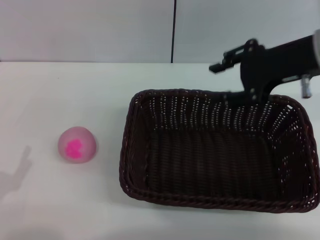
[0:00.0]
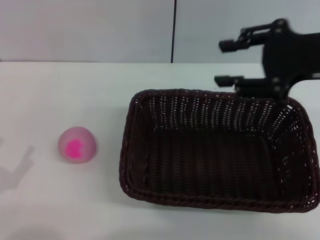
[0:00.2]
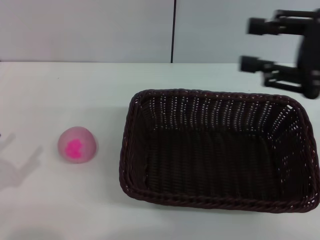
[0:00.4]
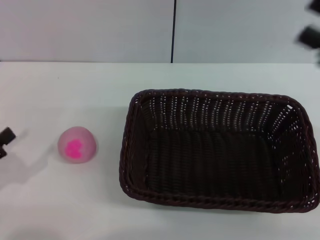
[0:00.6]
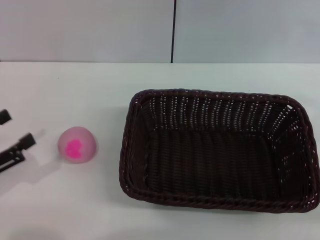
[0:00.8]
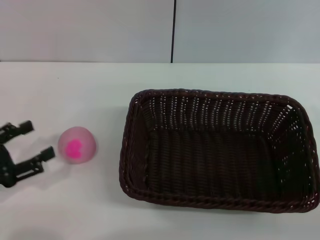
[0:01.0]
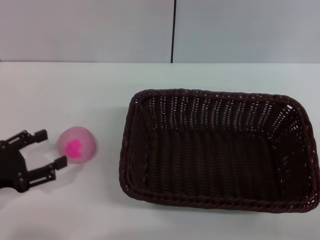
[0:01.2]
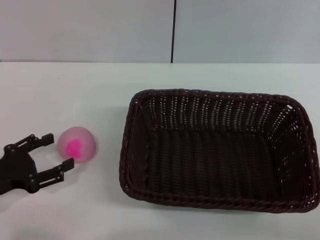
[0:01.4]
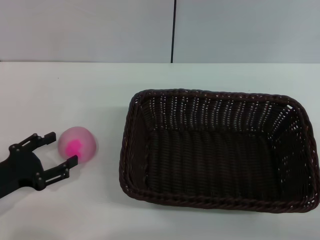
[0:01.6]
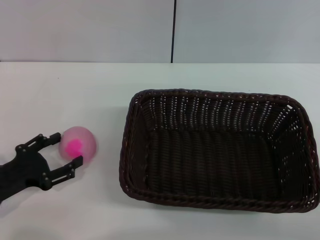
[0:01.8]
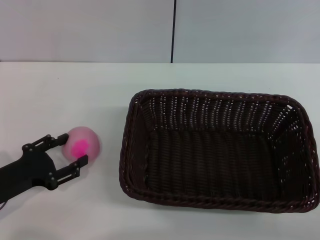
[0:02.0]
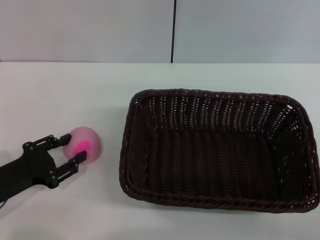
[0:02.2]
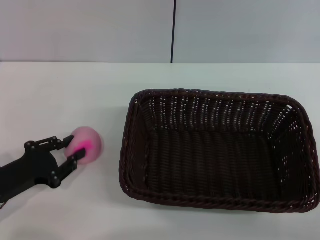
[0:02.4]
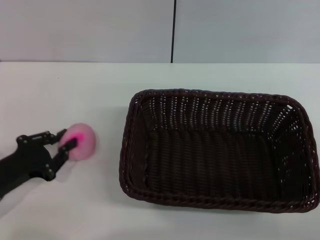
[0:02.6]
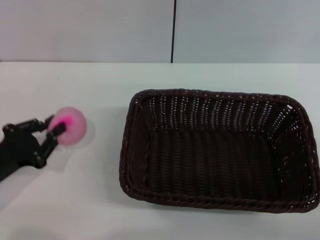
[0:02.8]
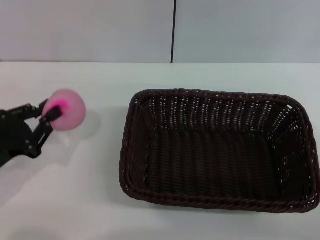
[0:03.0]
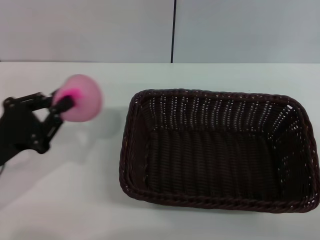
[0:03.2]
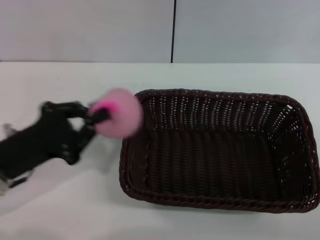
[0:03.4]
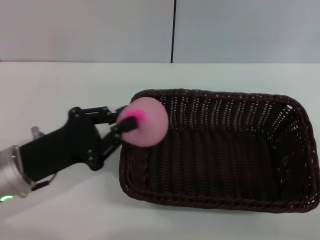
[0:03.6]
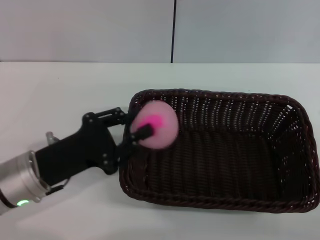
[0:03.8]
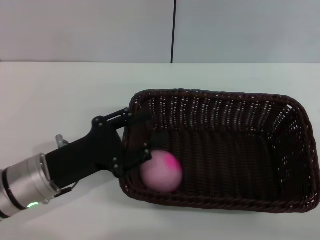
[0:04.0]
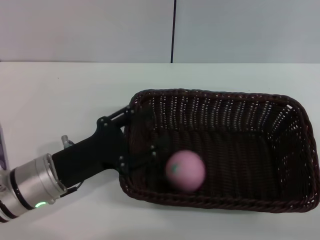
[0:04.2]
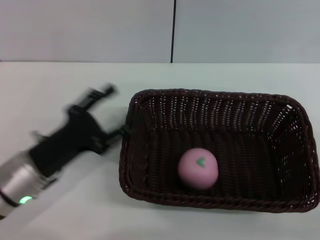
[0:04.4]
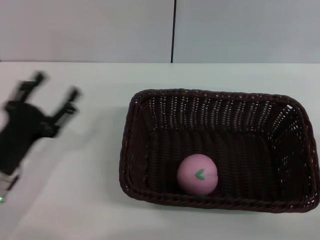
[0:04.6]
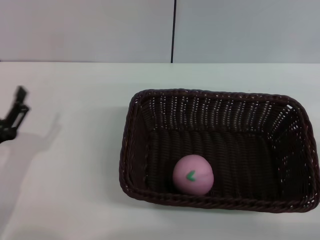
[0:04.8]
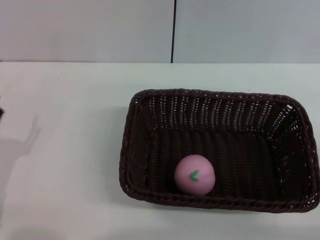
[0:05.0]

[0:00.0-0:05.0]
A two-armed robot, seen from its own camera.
Step, 0:00.2 to 0:02.8: Pick up the peach with the left gripper.
Step, 0:03.0 to 0:04.0: Place the peach into the basket with the left gripper.
0:00.0 to 0:01.6: The right gripper heads backward, downward and to the right, covering some 25 cm. The left gripper heads forward, covering roughly 10 cm.
0:01.6 to 0:03.4: The left gripper heads to the right, covering some 5 cm, and closes up.
0:03.4 to 0:05.0: The left gripper moves backward and downward, some 5 cm, goes to the right and returns, roughly 5 cm each way, and opens its fingers.
